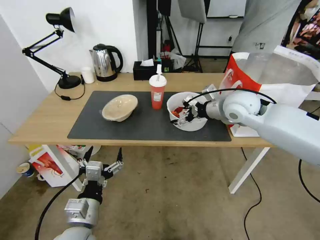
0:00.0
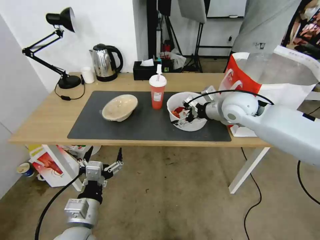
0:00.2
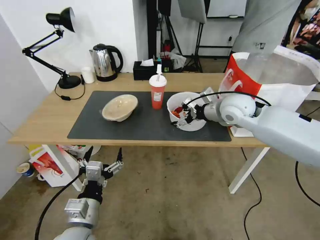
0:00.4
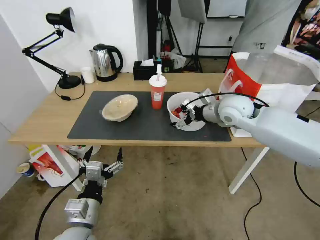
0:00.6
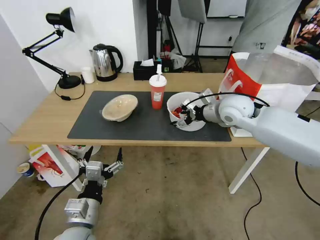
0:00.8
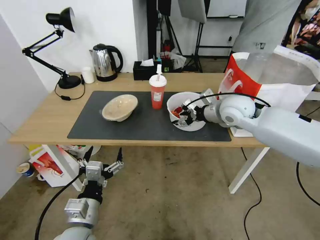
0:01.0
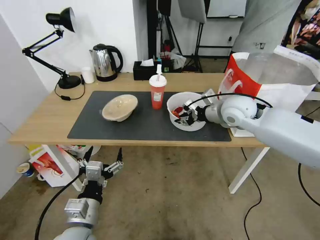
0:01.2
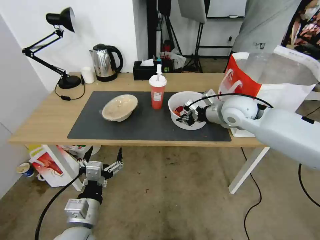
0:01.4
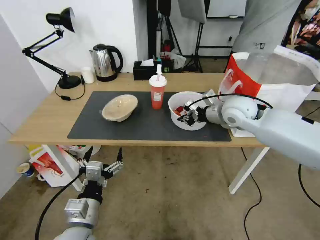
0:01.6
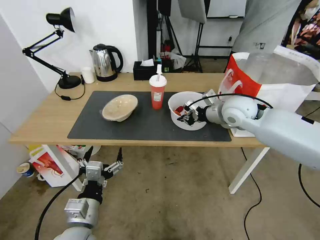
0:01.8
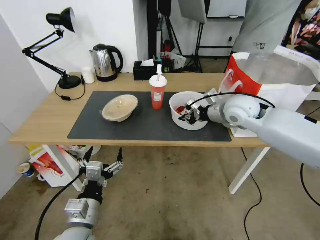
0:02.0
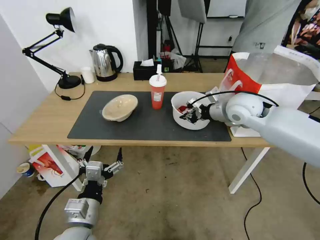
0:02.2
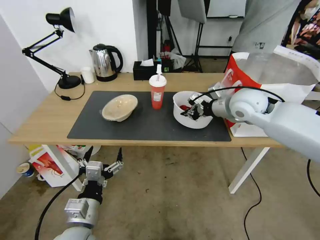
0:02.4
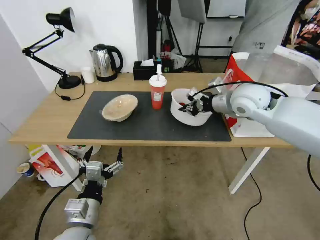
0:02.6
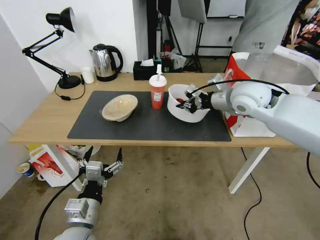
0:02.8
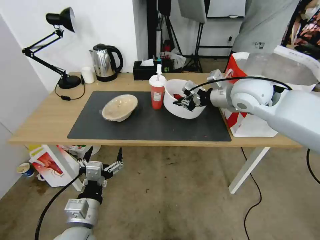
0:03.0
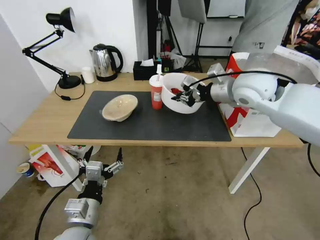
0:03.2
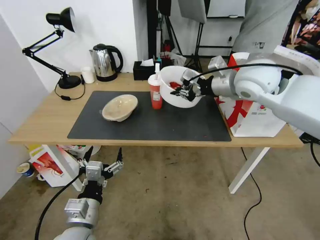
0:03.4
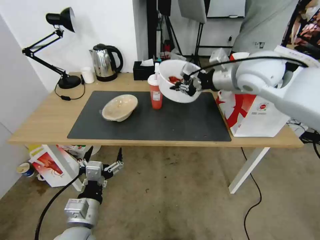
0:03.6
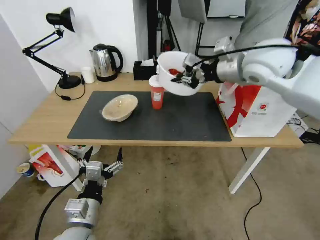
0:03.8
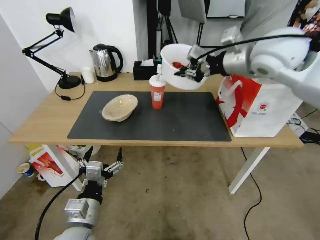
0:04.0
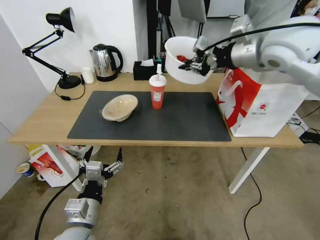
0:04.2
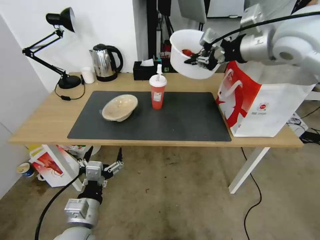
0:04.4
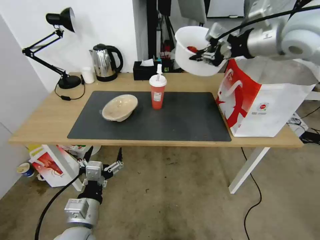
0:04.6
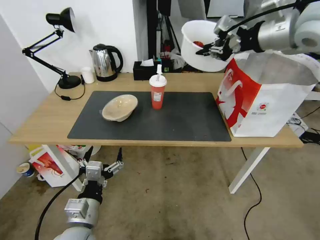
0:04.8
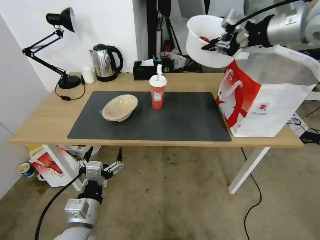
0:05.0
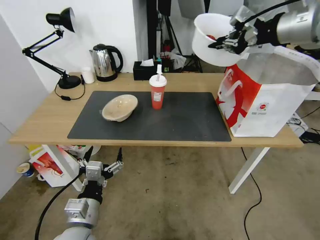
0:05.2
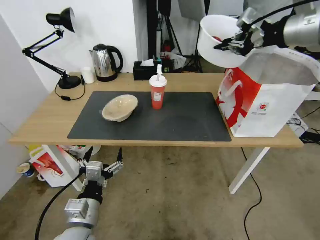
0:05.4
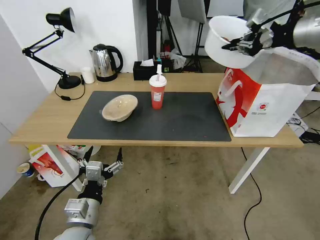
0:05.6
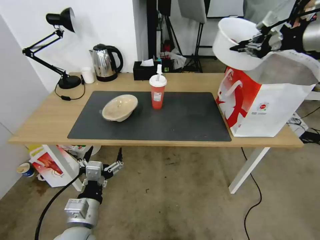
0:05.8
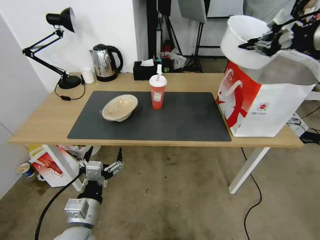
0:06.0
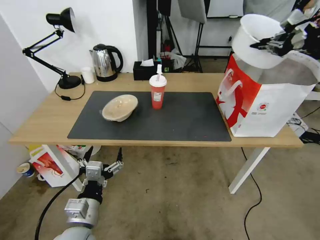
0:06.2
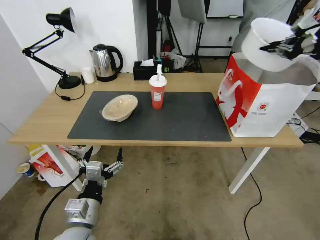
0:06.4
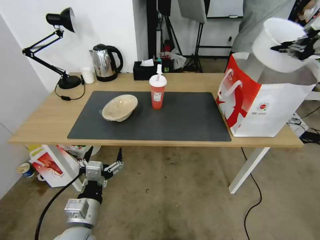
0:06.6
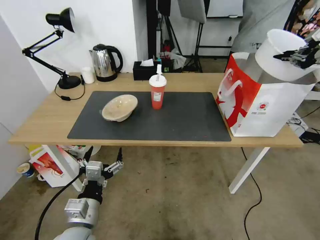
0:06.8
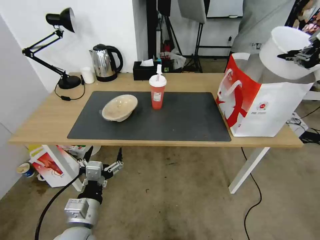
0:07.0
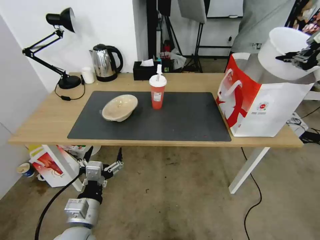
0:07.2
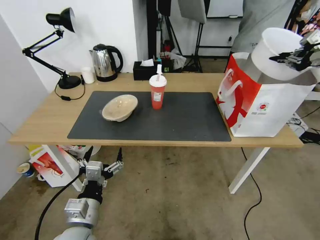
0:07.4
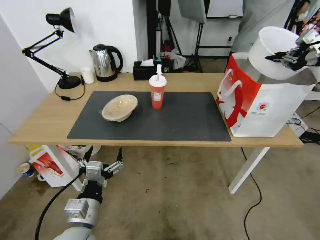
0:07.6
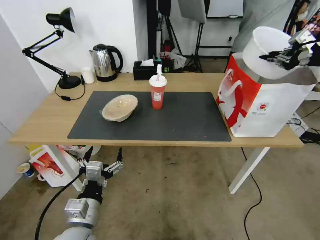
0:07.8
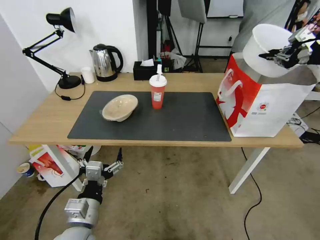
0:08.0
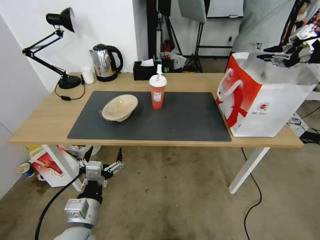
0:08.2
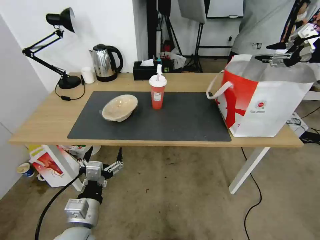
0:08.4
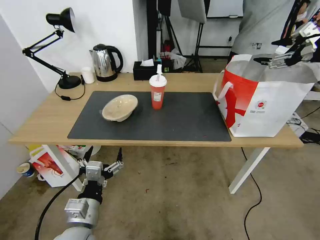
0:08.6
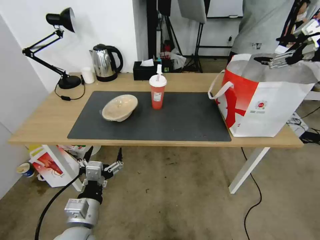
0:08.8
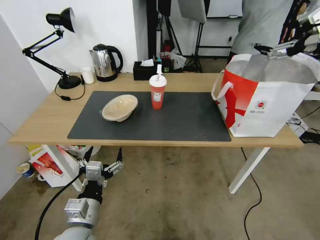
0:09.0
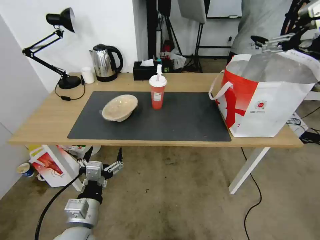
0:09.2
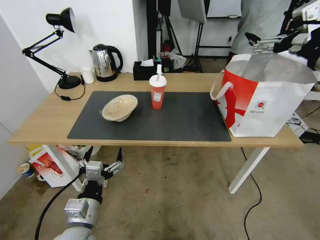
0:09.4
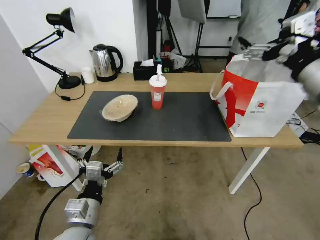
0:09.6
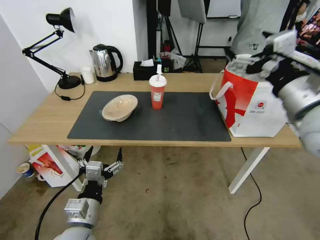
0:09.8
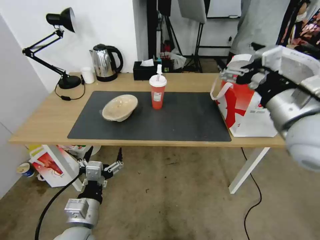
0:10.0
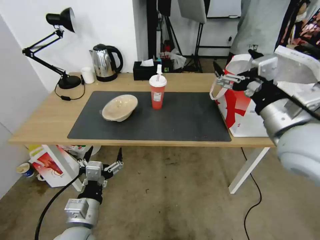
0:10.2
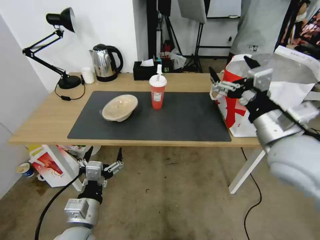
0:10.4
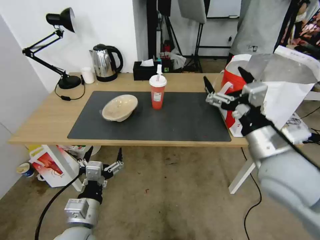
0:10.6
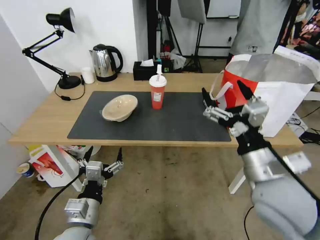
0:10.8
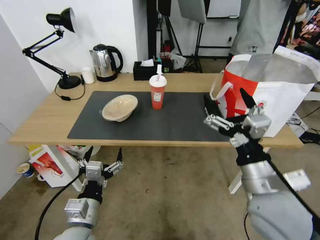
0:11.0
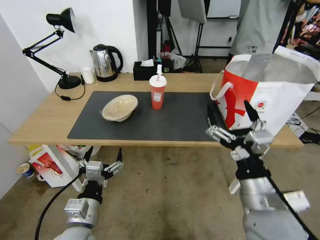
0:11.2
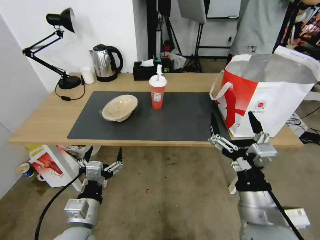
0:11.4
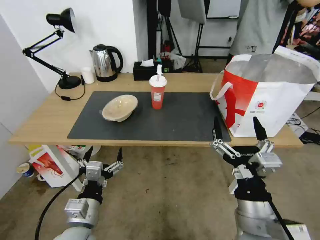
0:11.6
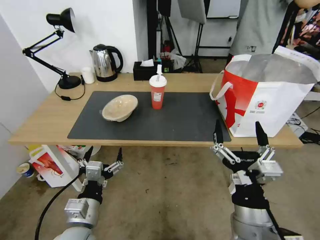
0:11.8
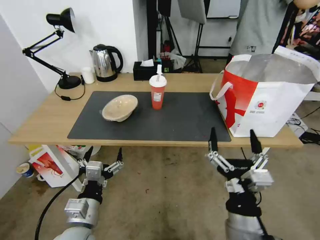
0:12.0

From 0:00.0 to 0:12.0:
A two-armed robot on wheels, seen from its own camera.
Task of the whole recording: Pick up the trash from the table and place it into the takeout bag.
From 0:00.0 to 0:01.6: The right gripper closes its fingers.
From 0:01.6 to 0:03.0: The right gripper heads upward, covering approximately 5 cm.
From 0:03.0 to 0:04.4: The right gripper goes roughly 15 cm upward.
From 0:04.4 to 0:06.0: The right gripper shifts about 15 cm to the right.
From 0:06.0 to 0:07.6: The right gripper moves to the right and downward, approximately 10 cm.
From 0:07.6 to 0:09.0: The right gripper moves to the left, roughly 5 cm, and opens up.
From 0:09.0 to 0:10.4: The right gripper goes roughly 25 cm to the left, downward and backward.
From 0:10.4 to 0:12.0: The right gripper travels downward, backward and to the left by about 20 cm.

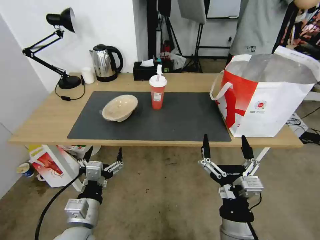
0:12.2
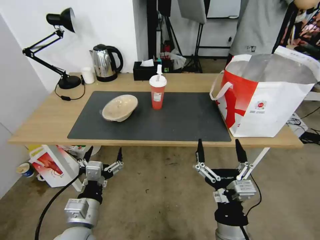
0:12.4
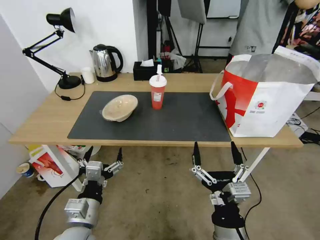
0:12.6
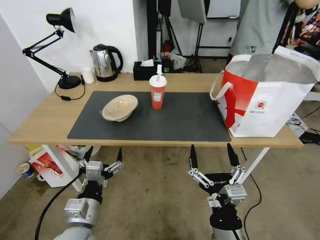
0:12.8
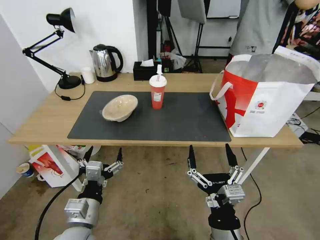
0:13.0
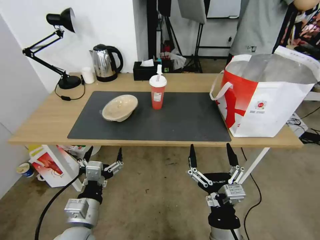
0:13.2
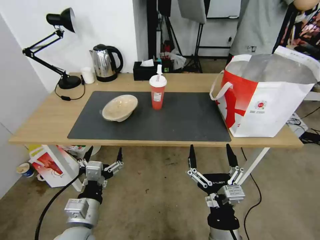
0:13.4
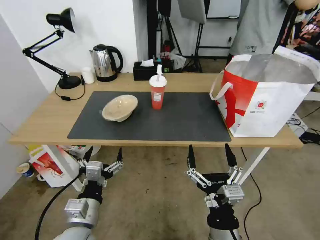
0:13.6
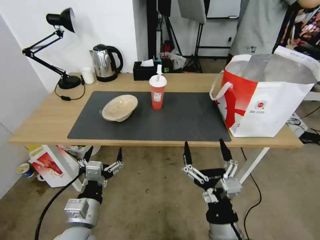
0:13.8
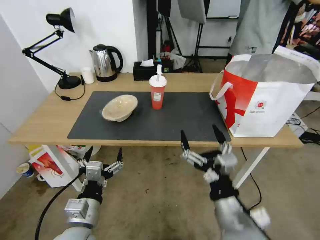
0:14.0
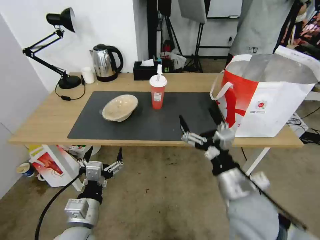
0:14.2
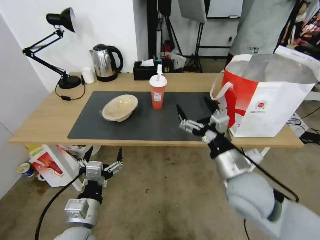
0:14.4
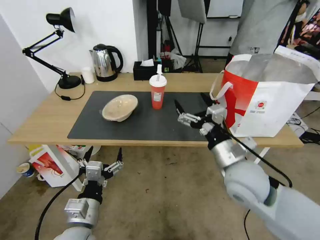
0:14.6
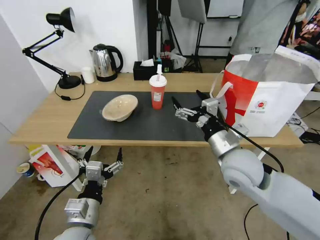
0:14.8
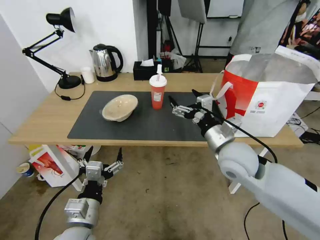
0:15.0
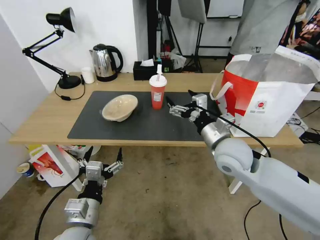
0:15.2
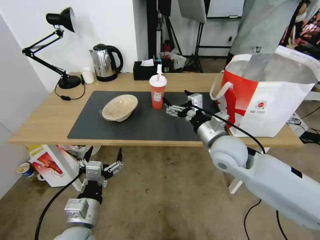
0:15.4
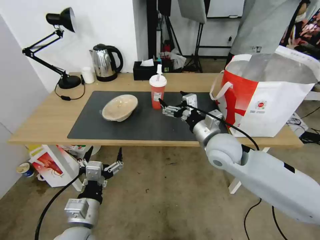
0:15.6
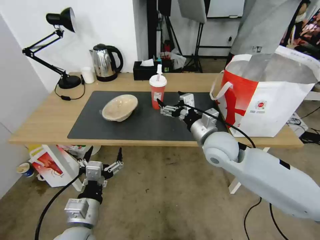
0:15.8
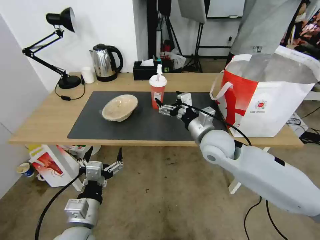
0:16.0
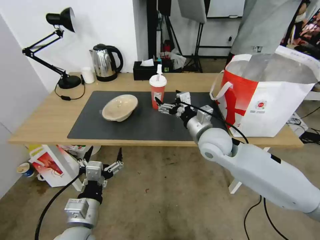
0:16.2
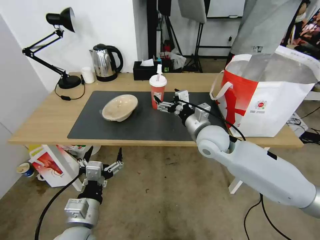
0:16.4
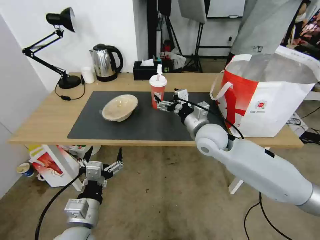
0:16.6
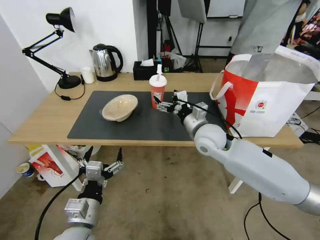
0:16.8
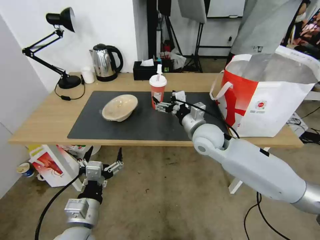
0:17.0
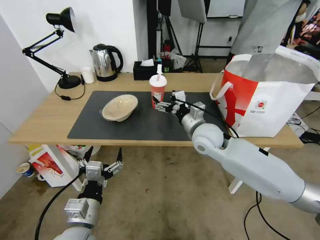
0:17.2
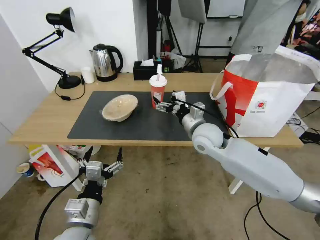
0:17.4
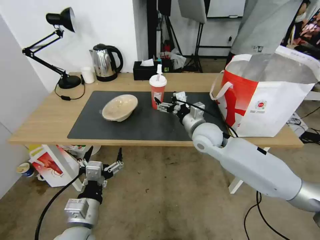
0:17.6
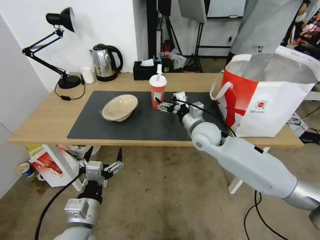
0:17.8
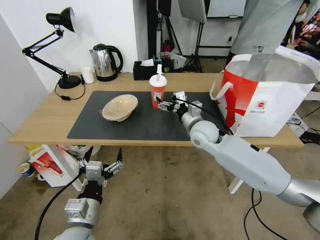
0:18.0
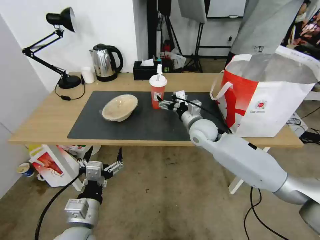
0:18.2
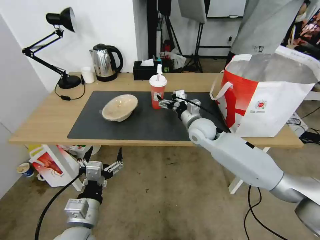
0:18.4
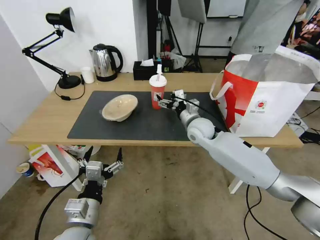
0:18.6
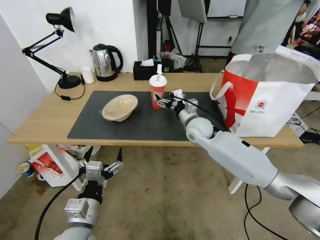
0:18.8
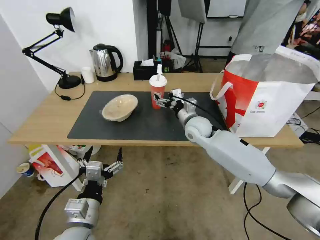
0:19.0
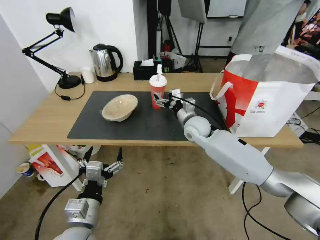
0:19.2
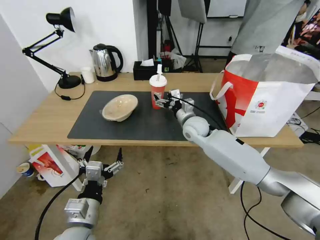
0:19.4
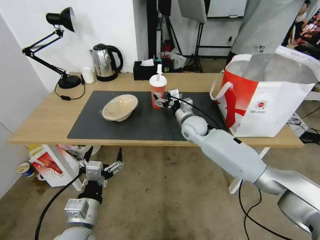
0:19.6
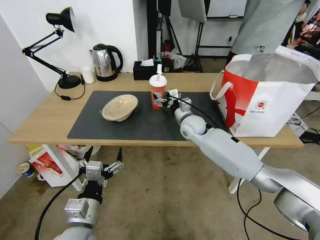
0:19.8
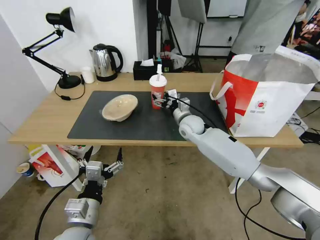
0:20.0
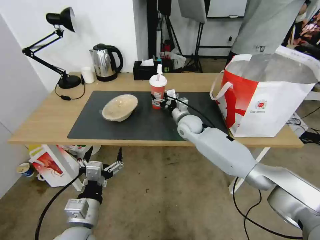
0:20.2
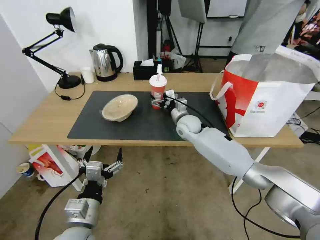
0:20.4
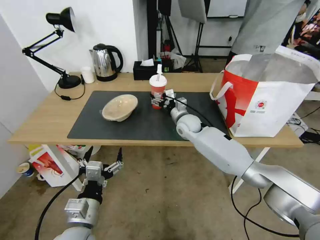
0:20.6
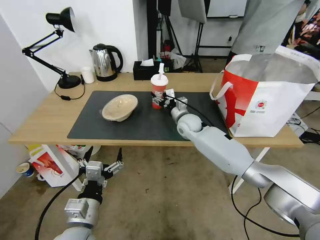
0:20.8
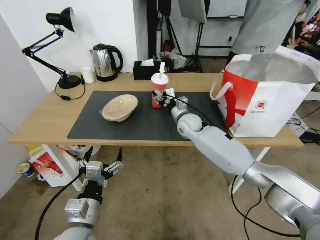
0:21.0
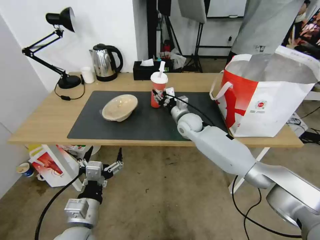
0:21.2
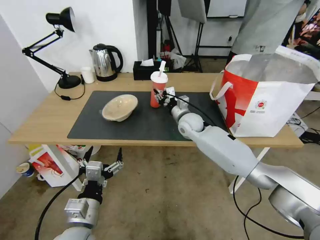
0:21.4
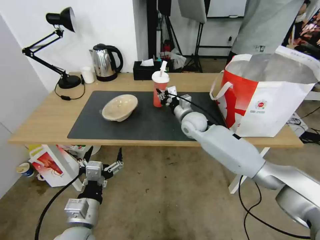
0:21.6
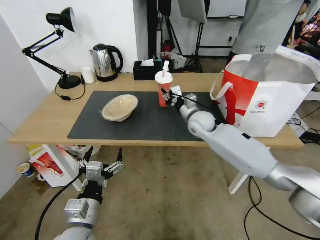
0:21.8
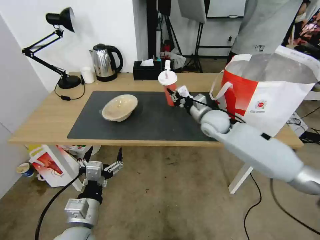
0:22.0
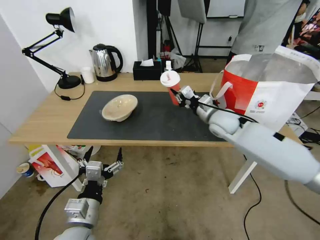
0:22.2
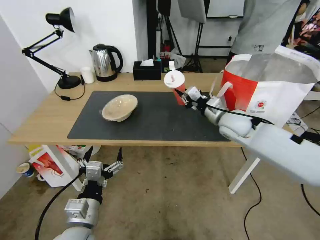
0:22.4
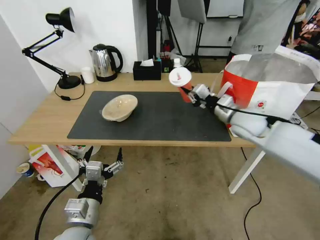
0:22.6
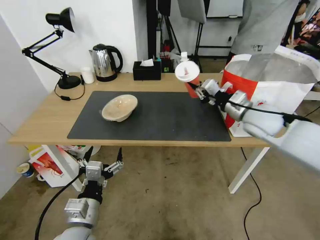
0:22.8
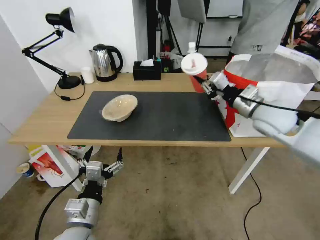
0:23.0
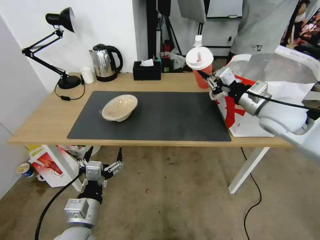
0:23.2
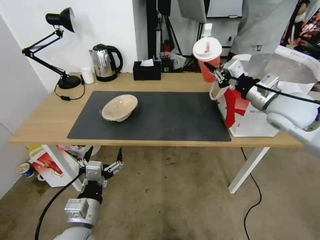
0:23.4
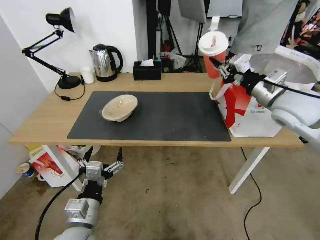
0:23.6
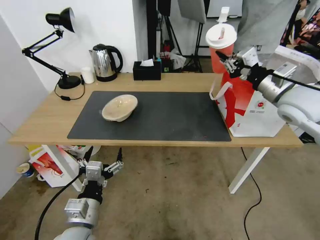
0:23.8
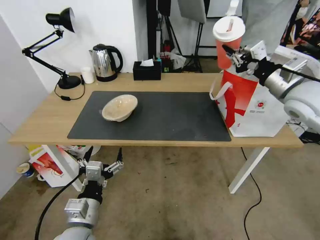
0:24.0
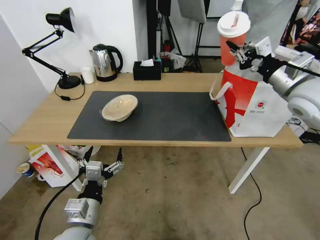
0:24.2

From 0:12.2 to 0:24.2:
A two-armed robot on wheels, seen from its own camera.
Task of the whole recording: Pick up the trash from the table and place it into the takeout bag.
From 0:12.2 to 0:13.8: The grippers stay close to where they were, moving slightly.
From 0:13.8 to 0:15.2: The right gripper moves forward, about 25 cm.
From 0:15.2 to 0:16.6: The right gripper heads forward, covering some 5 cm.
From 0:16.6 to 0:18.2: The right gripper heads forward, covering about 5 cm.
From 0:18.2 to 0:19.8: The right gripper ends up roughly 5 cm from where it was.
From 0:19.8 to 0:21.2: The right gripper closes.
From 0:21.2 to 0:22.6: The right gripper is displaced to the right, upward and backward by about 20 cm, and closes.
From 0:22.6 to 0:24.2: The right gripper travels upward and to the right by roughly 15 cm.
